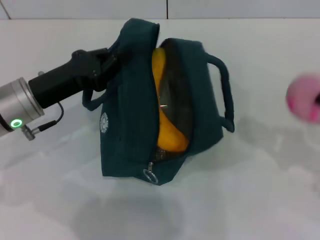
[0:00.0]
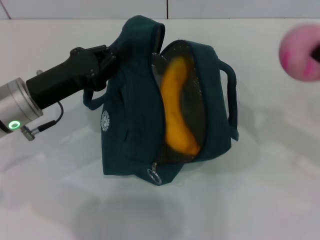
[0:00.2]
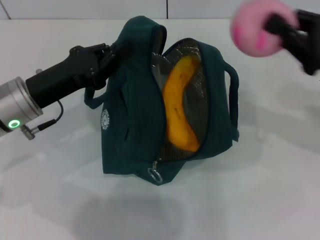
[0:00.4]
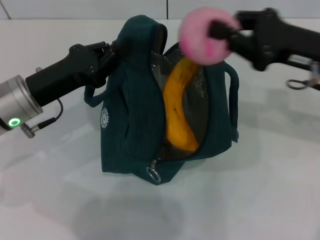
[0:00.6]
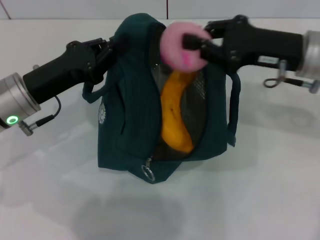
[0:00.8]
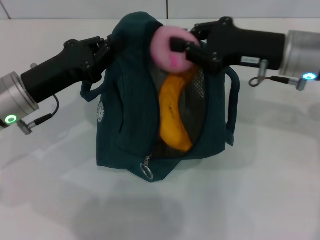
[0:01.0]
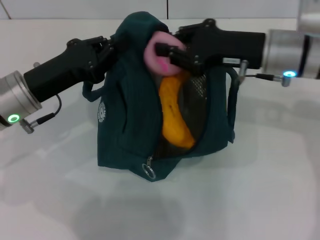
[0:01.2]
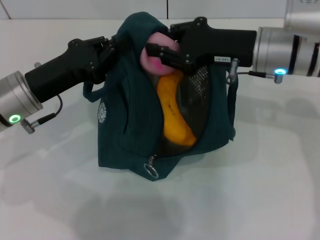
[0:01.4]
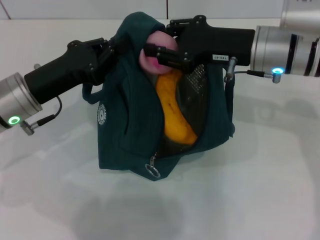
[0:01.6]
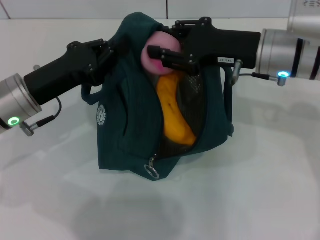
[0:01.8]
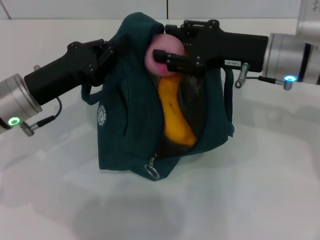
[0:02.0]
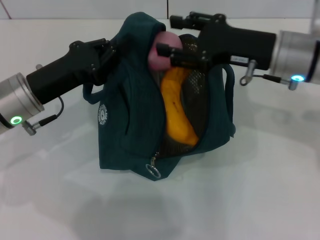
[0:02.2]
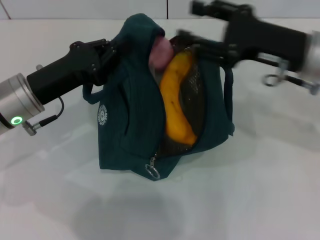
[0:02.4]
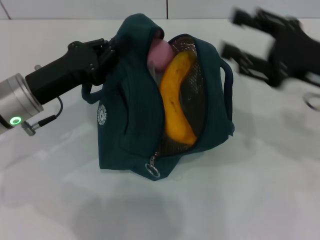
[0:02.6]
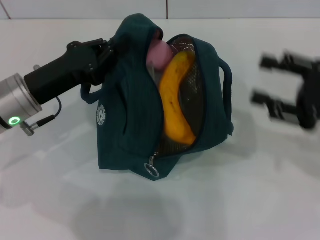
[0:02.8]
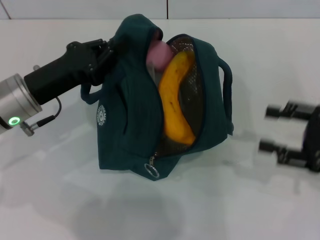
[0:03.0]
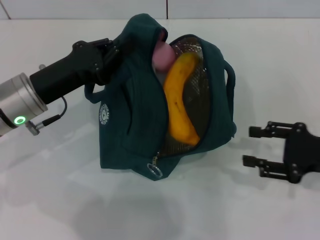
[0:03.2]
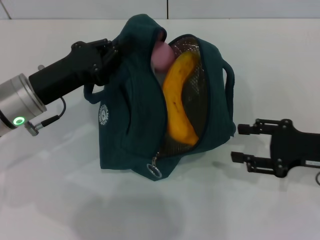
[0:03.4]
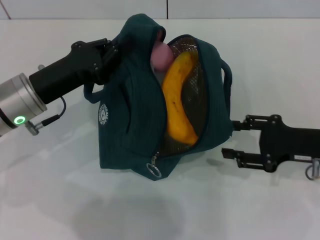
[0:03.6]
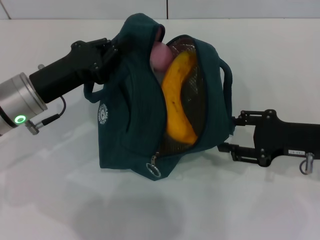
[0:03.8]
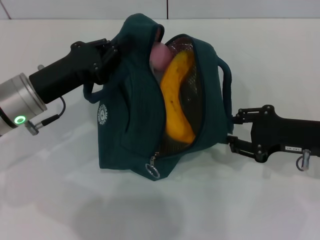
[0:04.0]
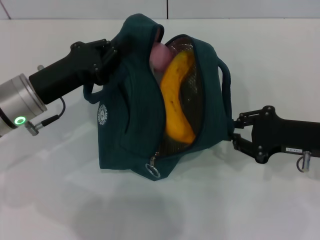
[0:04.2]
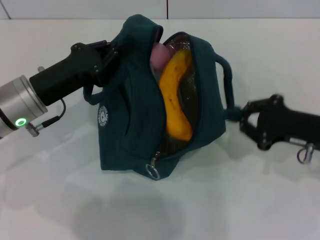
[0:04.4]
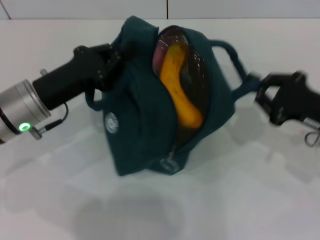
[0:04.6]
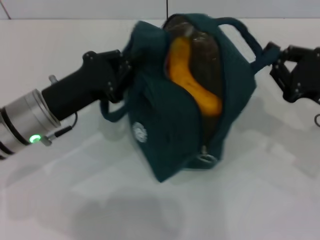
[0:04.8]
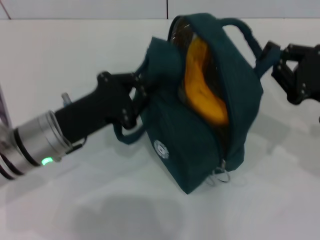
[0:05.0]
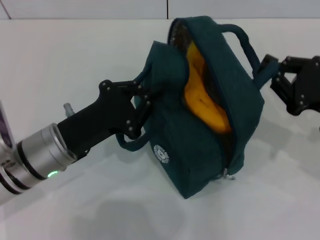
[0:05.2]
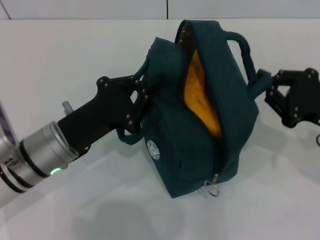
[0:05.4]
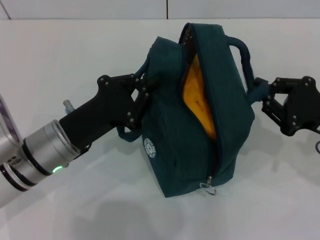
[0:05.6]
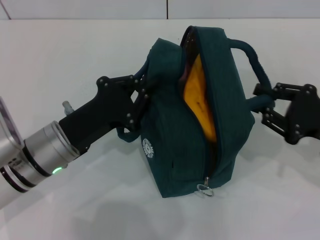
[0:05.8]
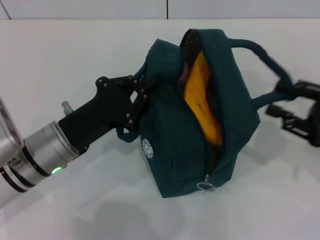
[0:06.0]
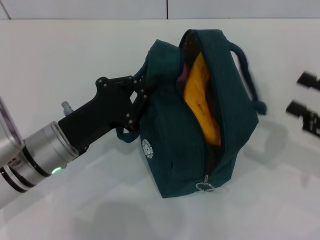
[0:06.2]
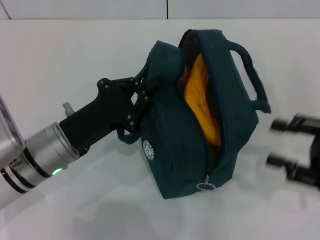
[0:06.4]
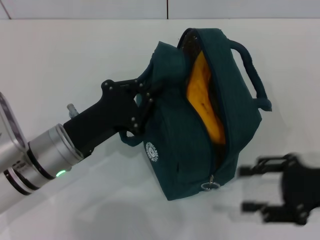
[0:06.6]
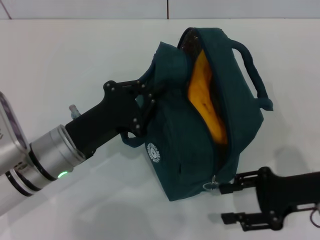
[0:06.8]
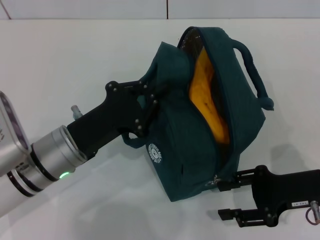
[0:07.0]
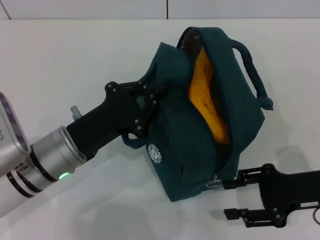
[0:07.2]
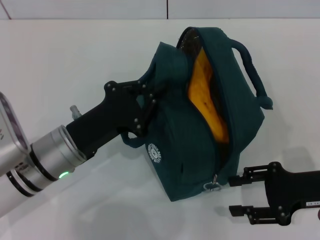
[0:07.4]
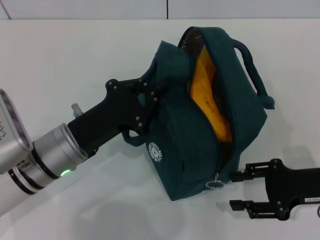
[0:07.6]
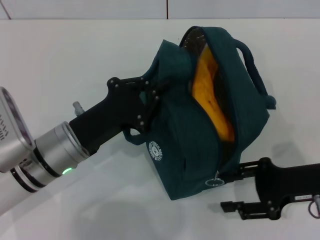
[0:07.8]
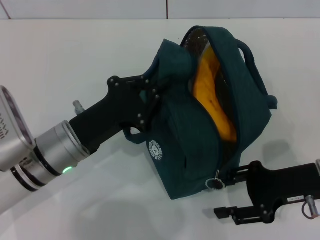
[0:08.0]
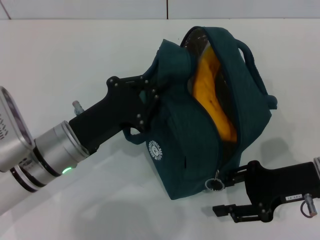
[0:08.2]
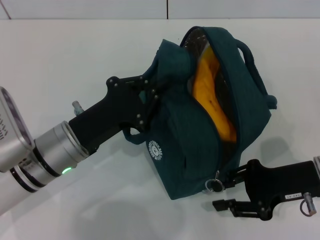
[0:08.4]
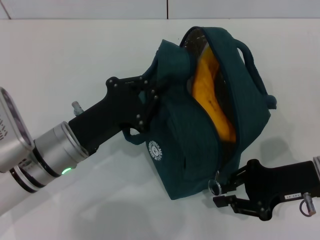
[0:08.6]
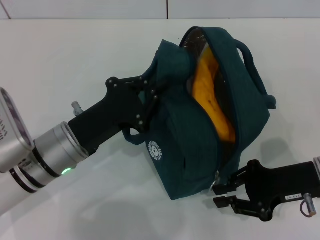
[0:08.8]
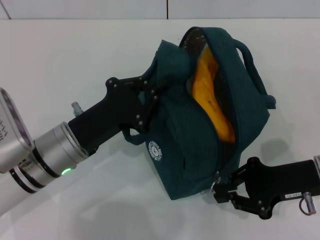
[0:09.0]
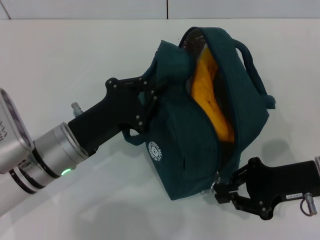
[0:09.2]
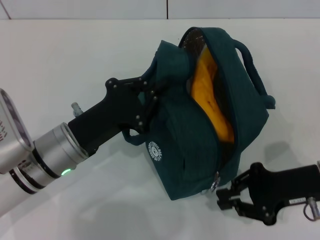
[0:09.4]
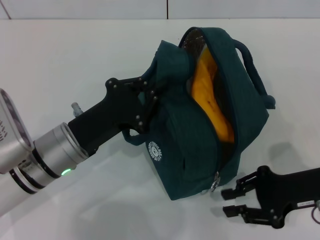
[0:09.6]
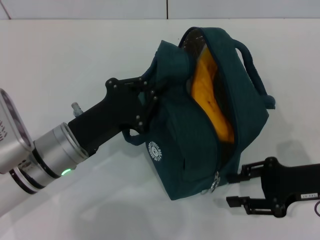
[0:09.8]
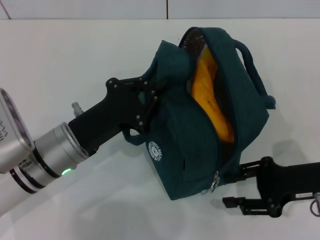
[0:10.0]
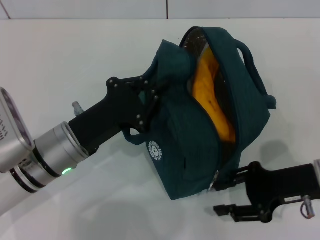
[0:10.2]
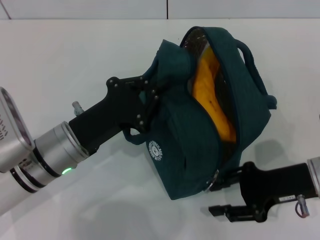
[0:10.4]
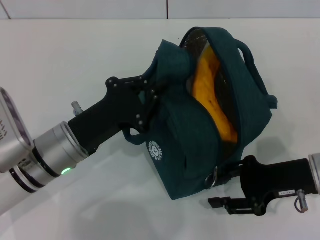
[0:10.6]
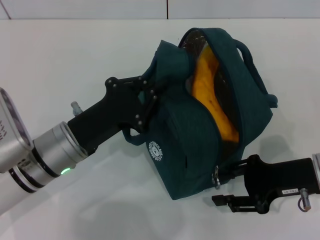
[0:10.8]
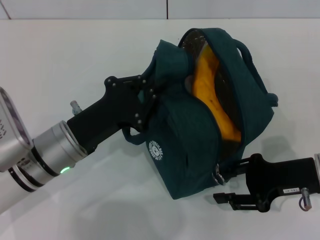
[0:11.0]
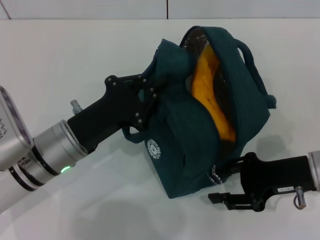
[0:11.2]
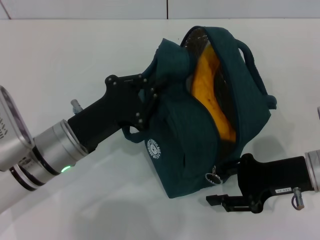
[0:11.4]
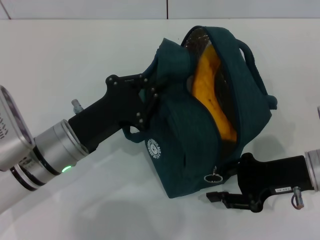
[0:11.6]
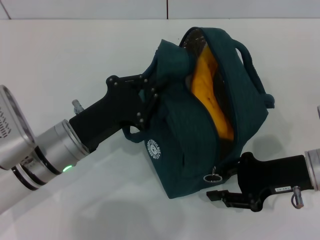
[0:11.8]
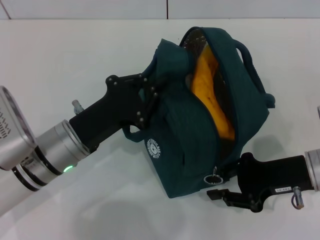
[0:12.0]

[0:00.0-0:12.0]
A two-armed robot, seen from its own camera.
Step, 0:02.4 to 0:06.0: Hold the lunch bag with your right hand.
0:00.0 to 0:01.6: The right gripper heads to the left and forward, covering some 25 cm.
0:01.6 to 0:03.0: The right gripper shifts approximately 20 cm to the right and backward, and opens.
0:03.0 to 0:04.4: The right gripper shifts by some 5 cm, and closes its fingers.
0:04.4 to 0:06.0: The right gripper goes about 5 cm to the right, while the left gripper changes place by some 5 cm.
0:06.0 to 0:07.6: The right gripper changes place by roughly 5 cm.
0:07.6 to 0:09.0: The right gripper closes its fingers.
0:09.0 to 0:12.0: The grippers move only a little.

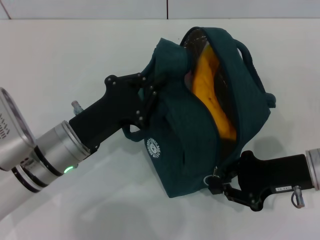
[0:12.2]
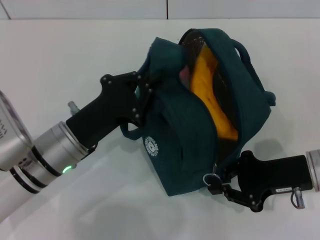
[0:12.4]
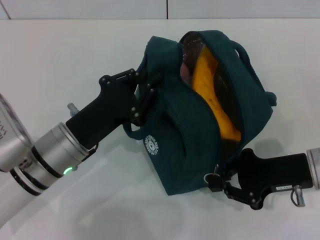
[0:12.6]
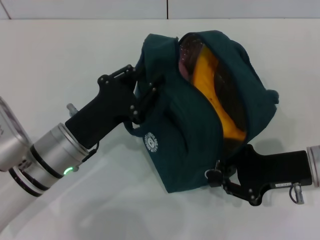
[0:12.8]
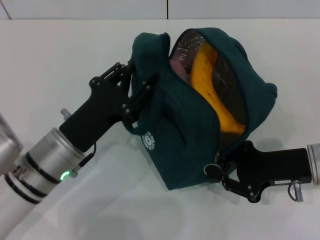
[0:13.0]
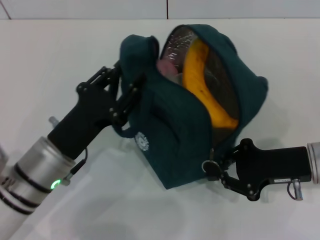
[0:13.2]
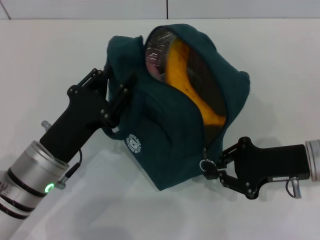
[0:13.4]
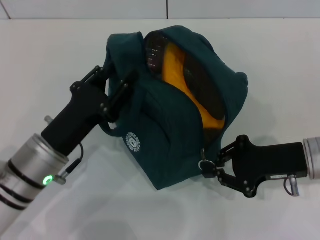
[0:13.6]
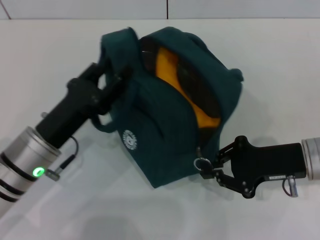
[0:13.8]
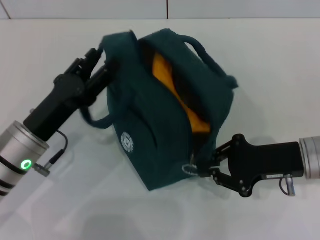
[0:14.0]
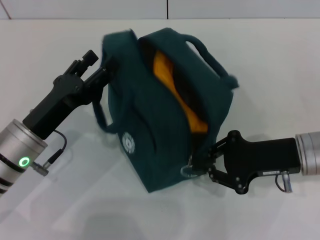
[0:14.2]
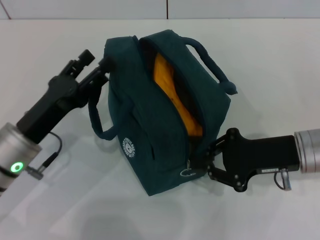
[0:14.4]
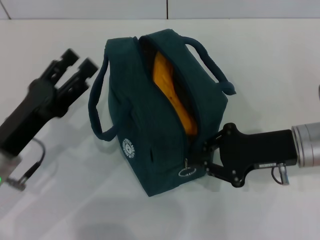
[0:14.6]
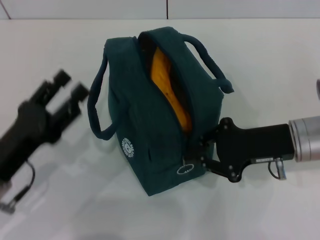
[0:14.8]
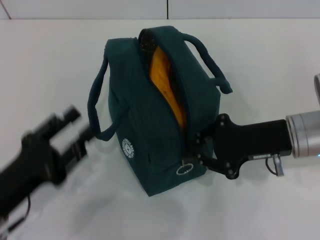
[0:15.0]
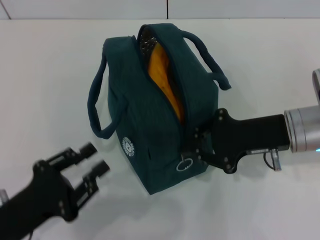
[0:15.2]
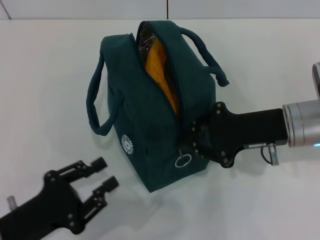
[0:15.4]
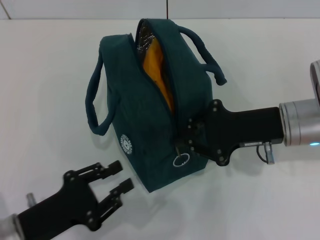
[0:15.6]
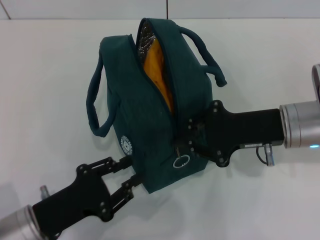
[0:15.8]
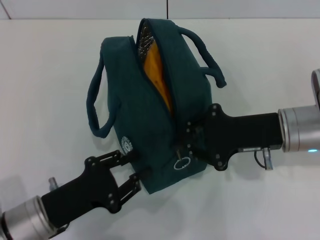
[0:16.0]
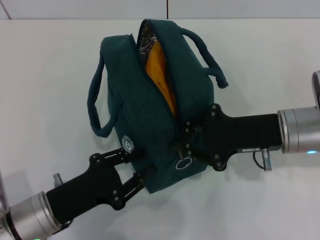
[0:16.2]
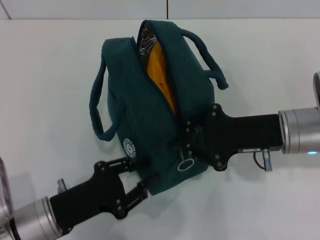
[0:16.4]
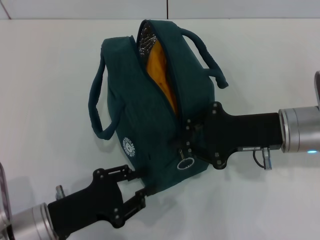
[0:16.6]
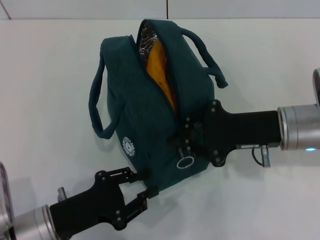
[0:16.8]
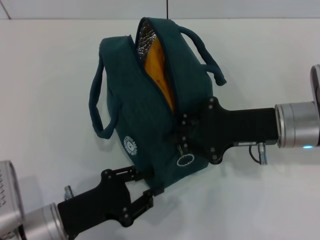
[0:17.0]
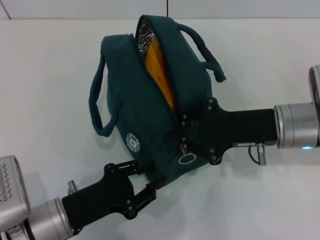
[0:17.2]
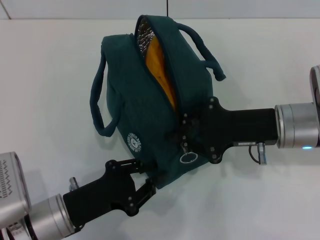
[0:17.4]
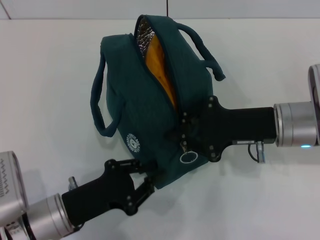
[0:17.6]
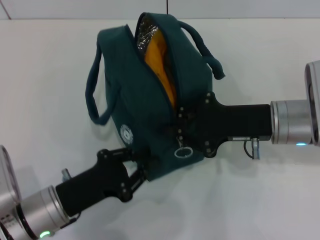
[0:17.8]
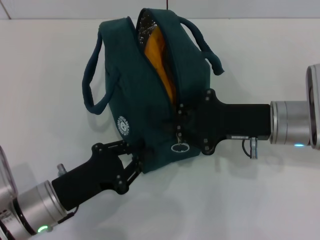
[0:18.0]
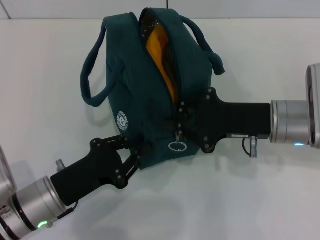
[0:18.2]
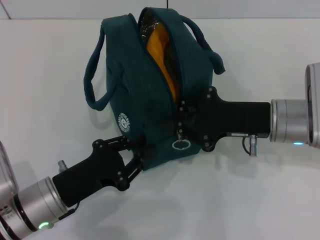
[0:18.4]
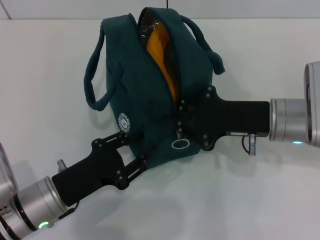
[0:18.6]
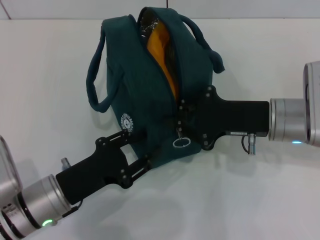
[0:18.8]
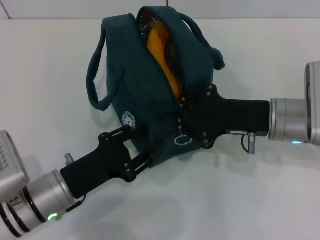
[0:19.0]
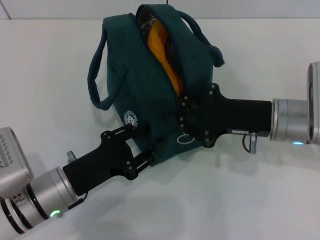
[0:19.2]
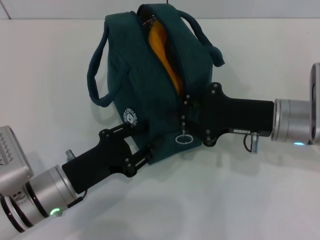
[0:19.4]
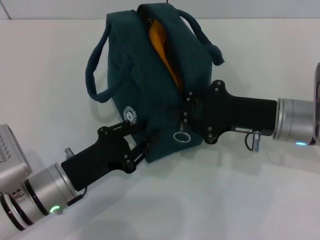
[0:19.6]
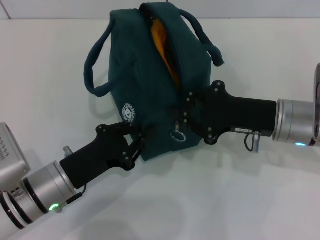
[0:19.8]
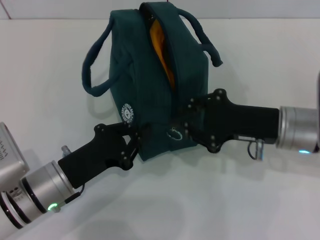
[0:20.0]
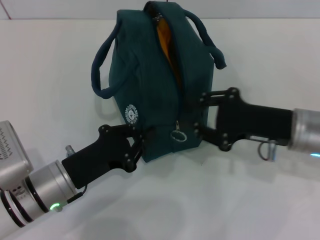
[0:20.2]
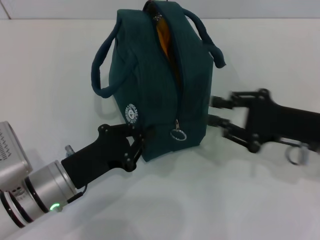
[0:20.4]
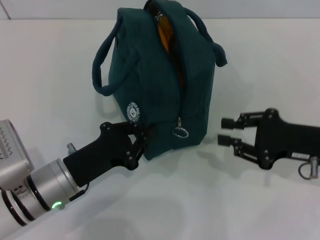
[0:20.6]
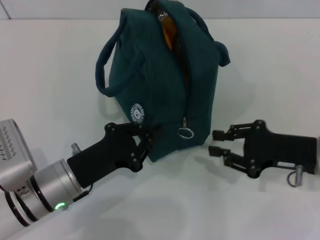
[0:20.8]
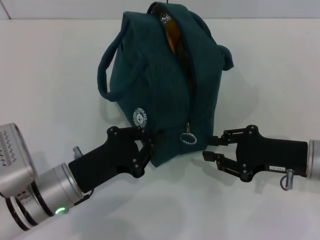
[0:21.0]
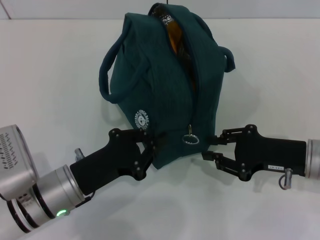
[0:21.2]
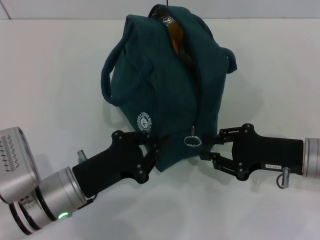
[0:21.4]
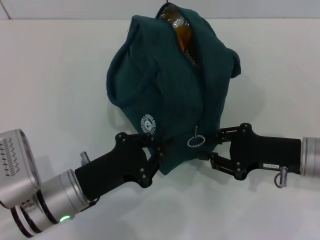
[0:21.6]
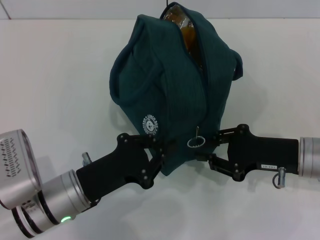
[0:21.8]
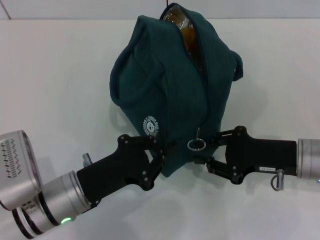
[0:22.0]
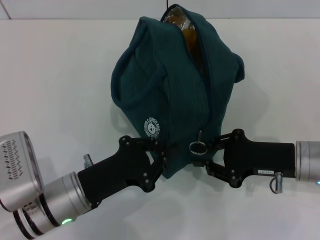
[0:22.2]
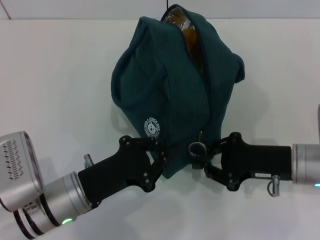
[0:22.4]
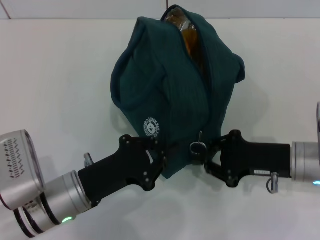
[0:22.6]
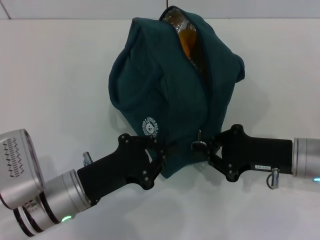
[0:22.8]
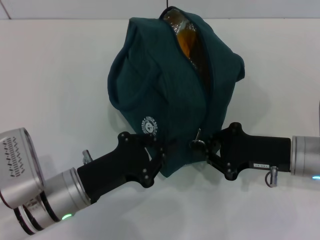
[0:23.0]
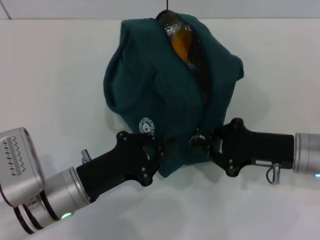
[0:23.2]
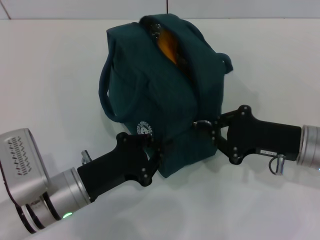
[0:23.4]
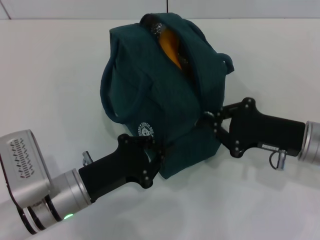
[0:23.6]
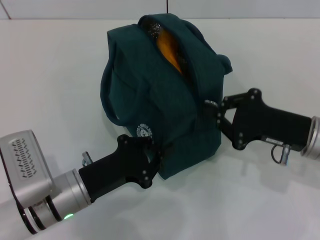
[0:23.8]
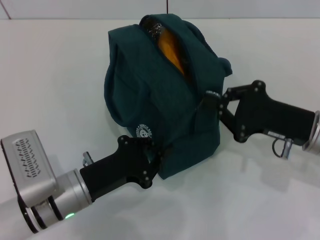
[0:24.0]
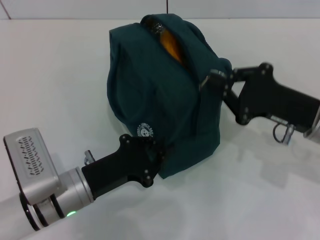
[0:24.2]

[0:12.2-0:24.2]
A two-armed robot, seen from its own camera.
0:12.2 to 0:13.8: The left gripper opens up.
0:13.8 to 0:15.2: The left gripper goes approximately 10 cm backward and to the left, while the right gripper shifts by roughly 5 cm.
0:15.2 to 0:16.6: The left gripper ends up roughly 5 cm from where it was.
0:18.2 to 0:19.8: There are only small adjustments of the grippers.
0:19.8 to 0:21.2: The right gripper heads to the right, covering roughly 5 cm.
0:21.2 to 0:22.6: The grippers move only a little.
